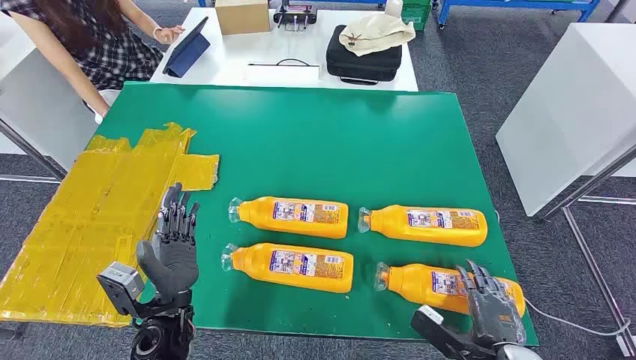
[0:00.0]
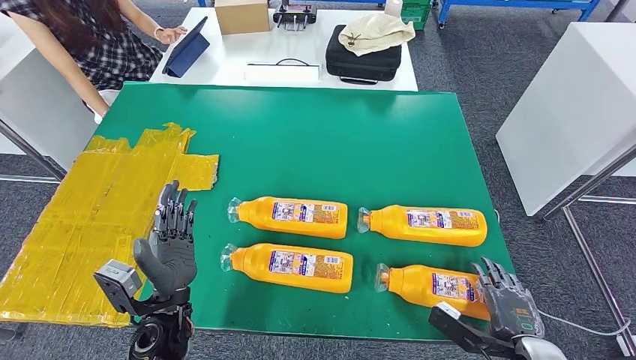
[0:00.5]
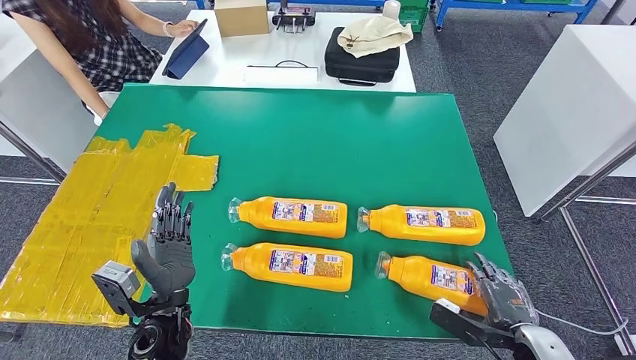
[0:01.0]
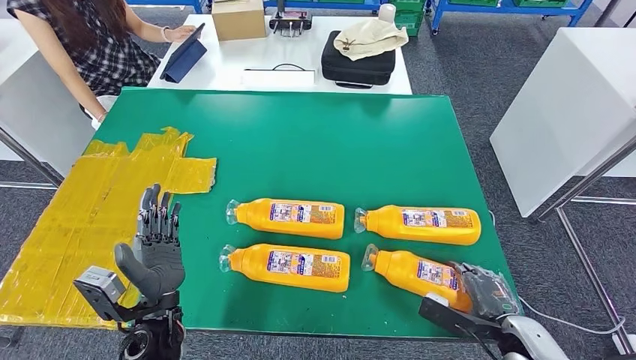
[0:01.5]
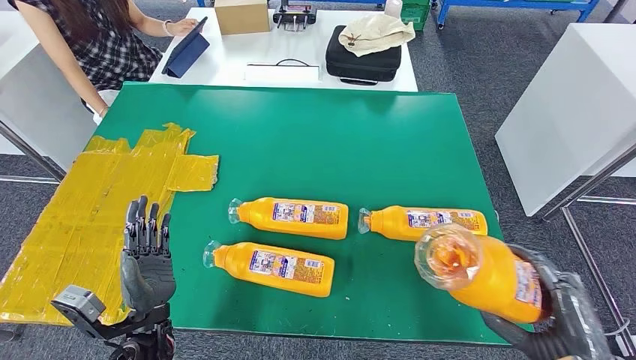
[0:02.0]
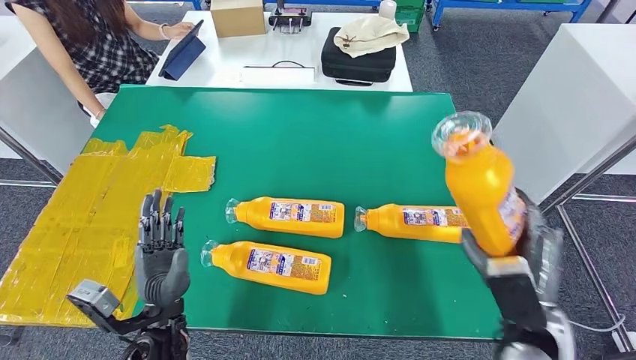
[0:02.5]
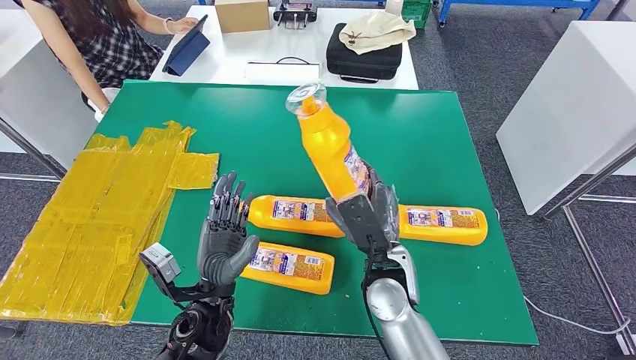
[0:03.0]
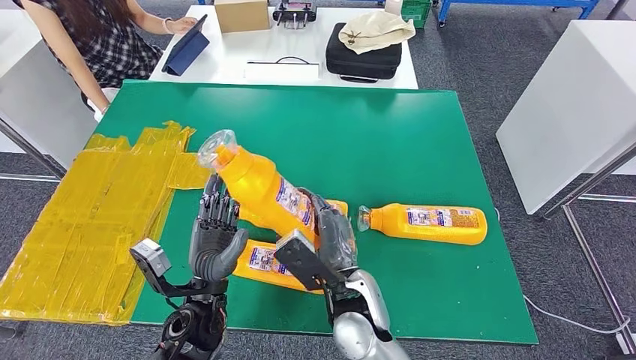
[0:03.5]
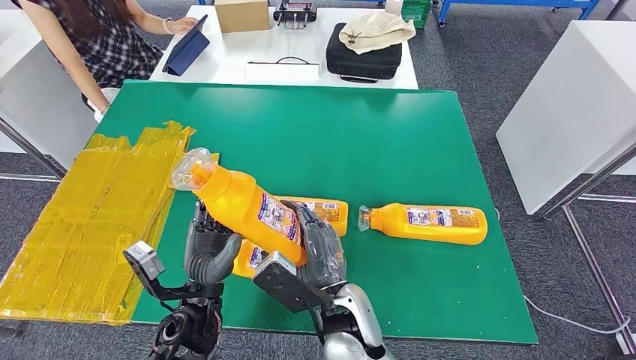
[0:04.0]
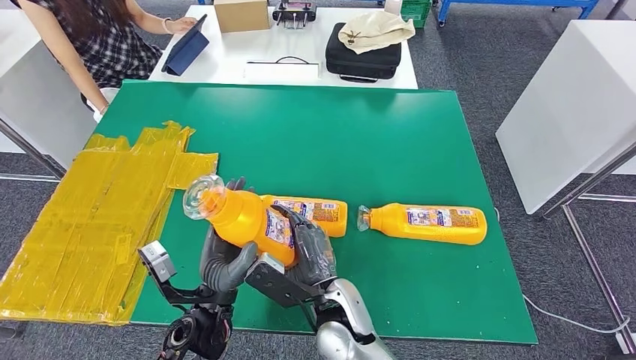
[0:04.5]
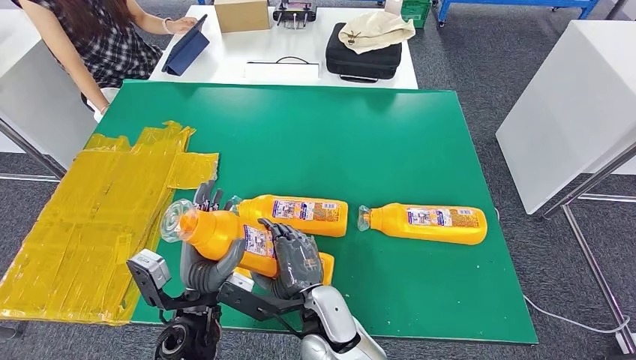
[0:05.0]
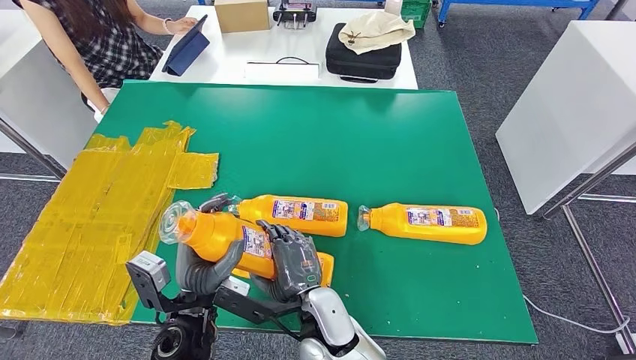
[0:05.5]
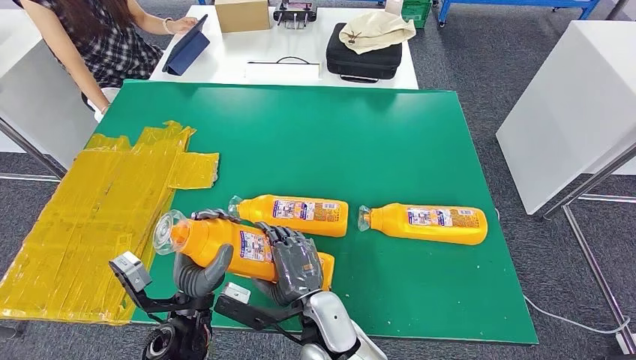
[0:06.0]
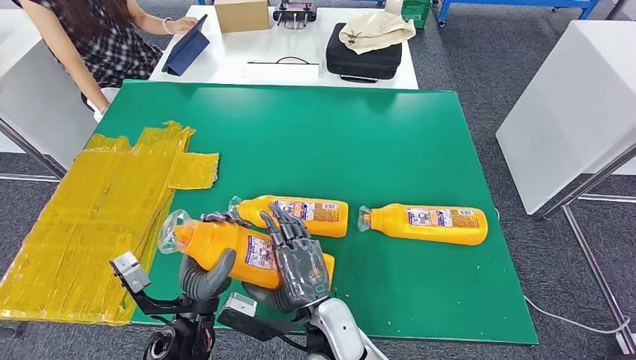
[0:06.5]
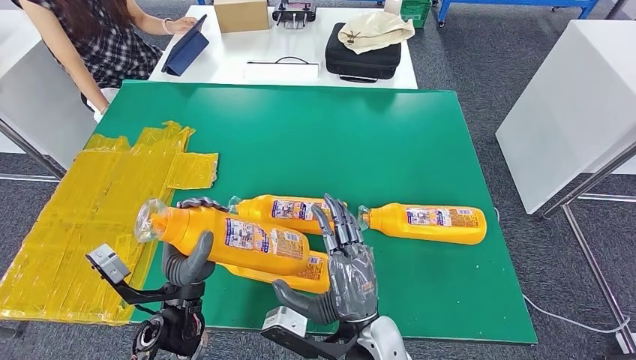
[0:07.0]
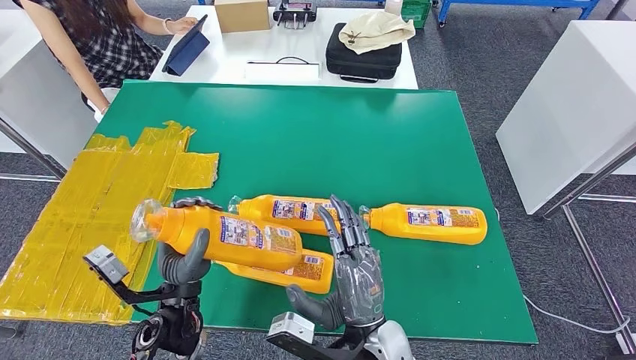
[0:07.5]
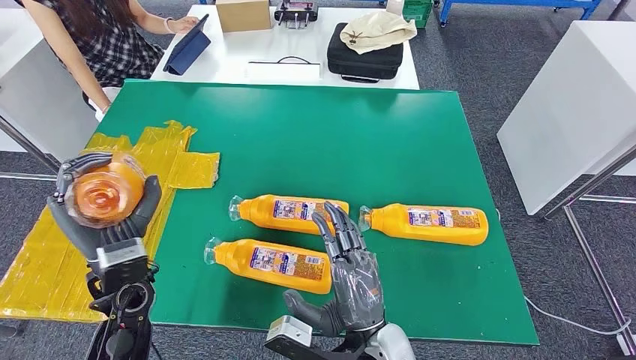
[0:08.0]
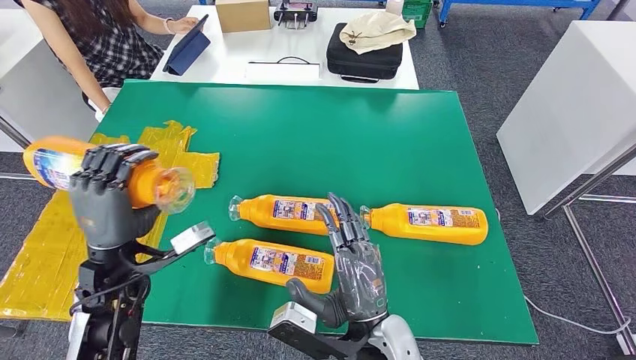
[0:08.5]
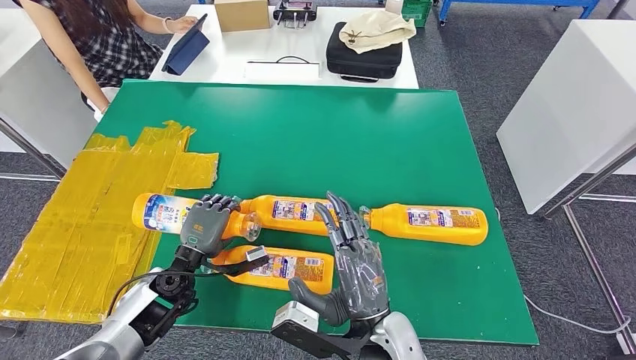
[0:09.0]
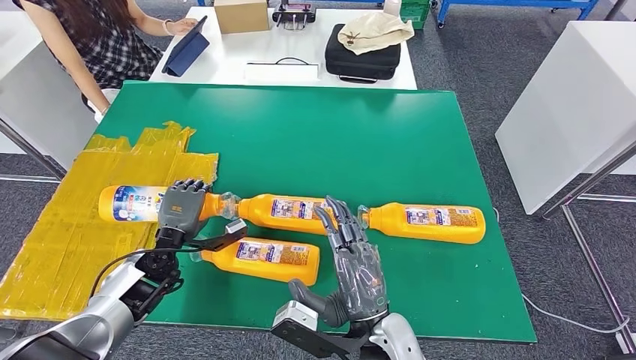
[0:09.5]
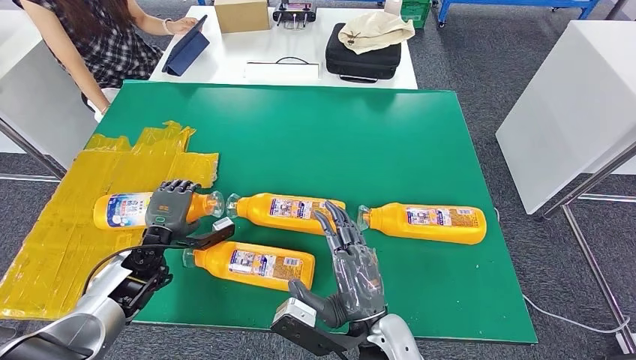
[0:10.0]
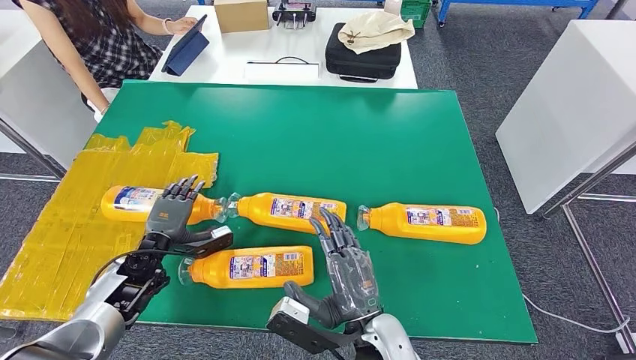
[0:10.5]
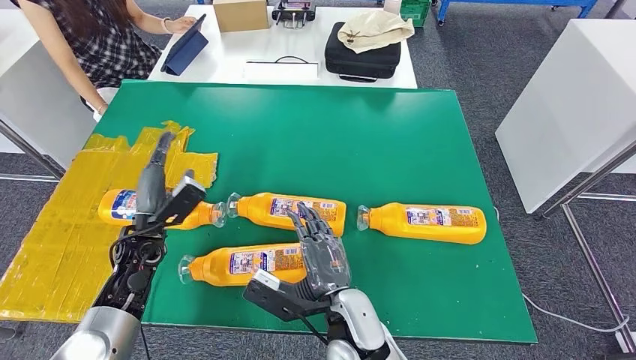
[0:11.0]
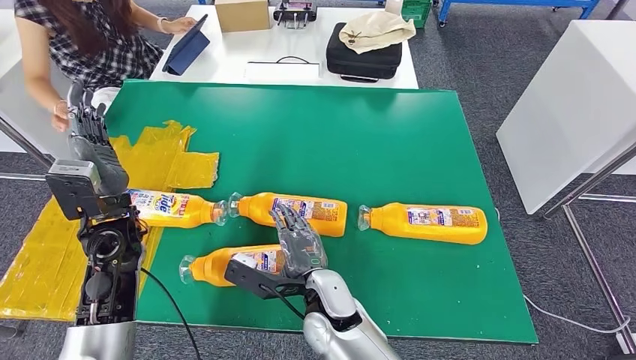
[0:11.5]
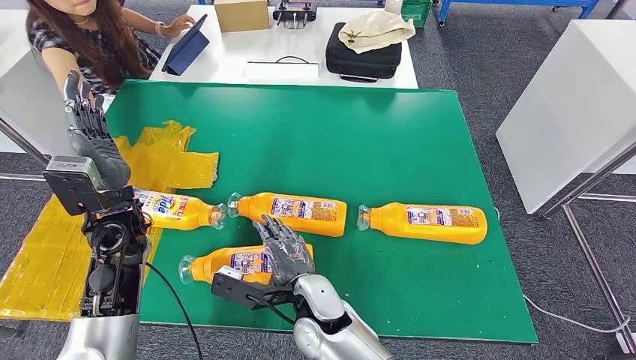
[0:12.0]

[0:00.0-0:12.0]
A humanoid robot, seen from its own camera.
Step, 0:00.0 to 0:03.0: Take the fast-moving consumer goods bottle from the table.
Step, 0:04.0 to 0:11.0: Flip the fast-moving consumer goods bottle to the front side.
0:04.0 to 0:06.0: The right hand ends up roughly 5 cm from where it was.
0:06.0 to 0:08.0: The right hand heads to the right, covering about 10 cm. Meanwhile the left hand travels to the left, upward and forward by some 15 cm.
0:08.0 to 0:10.0: The left hand is displaced downward, to the left and forward by about 15 cm.

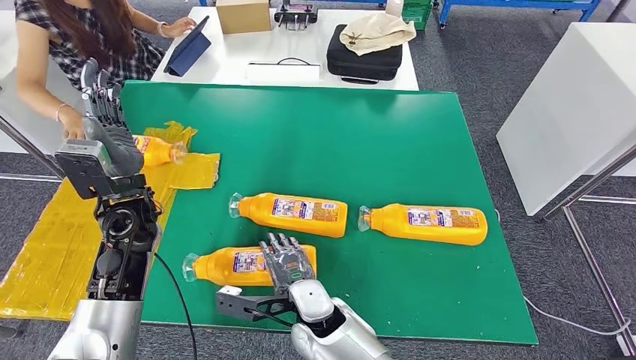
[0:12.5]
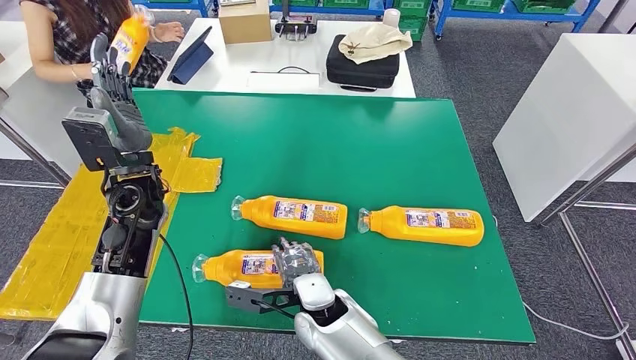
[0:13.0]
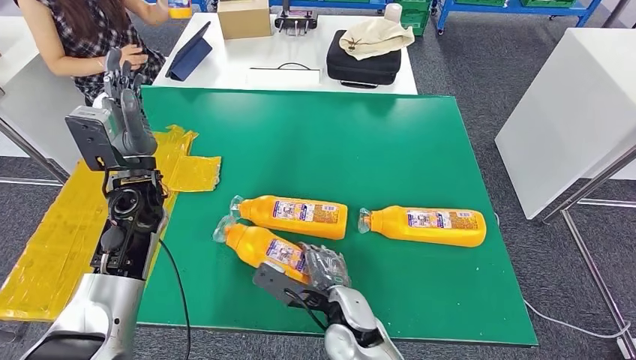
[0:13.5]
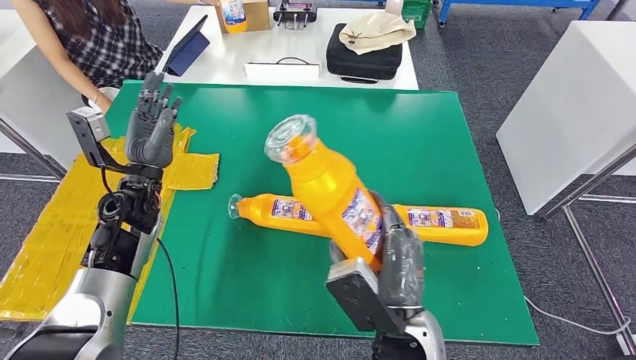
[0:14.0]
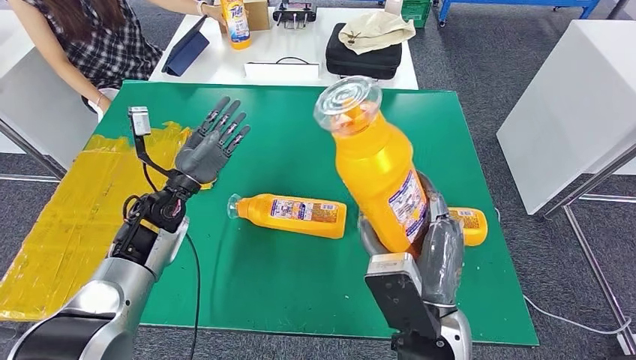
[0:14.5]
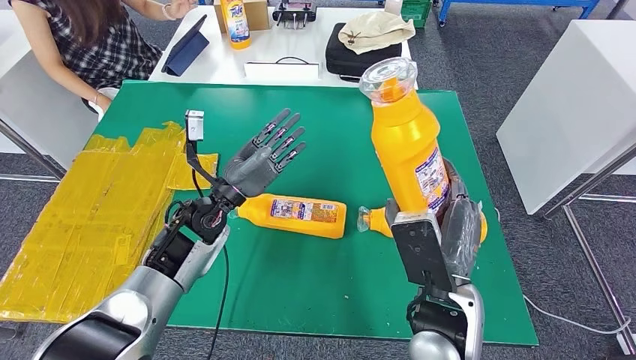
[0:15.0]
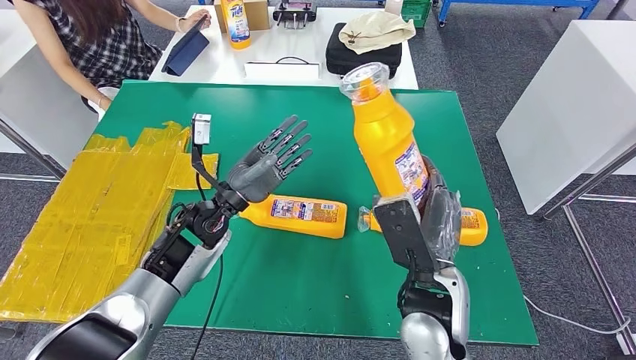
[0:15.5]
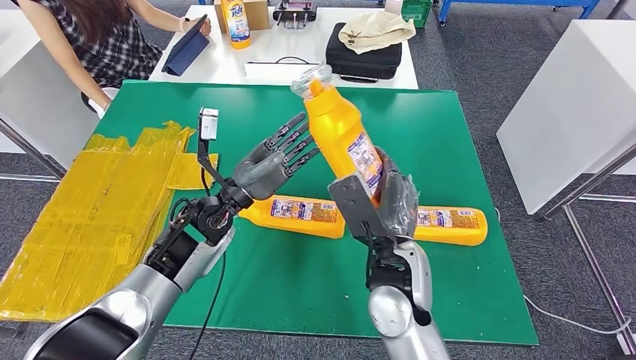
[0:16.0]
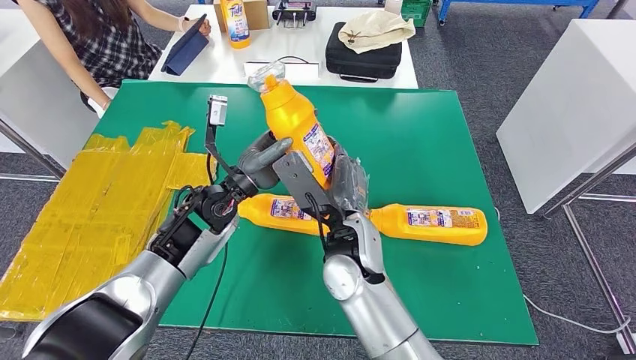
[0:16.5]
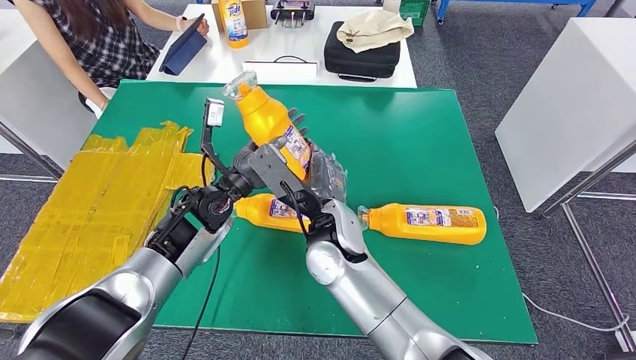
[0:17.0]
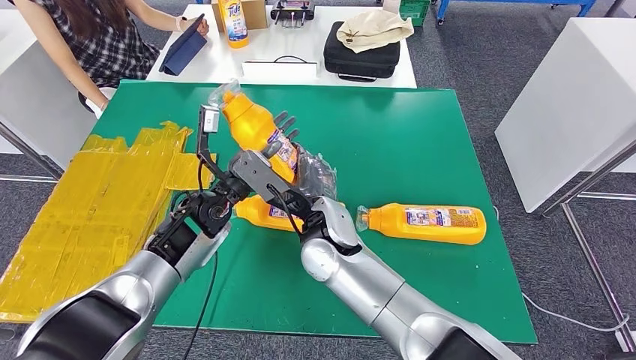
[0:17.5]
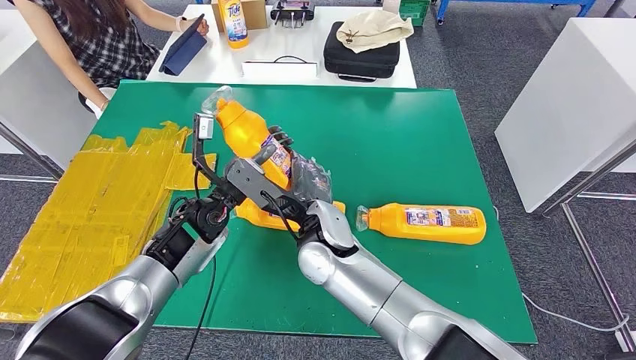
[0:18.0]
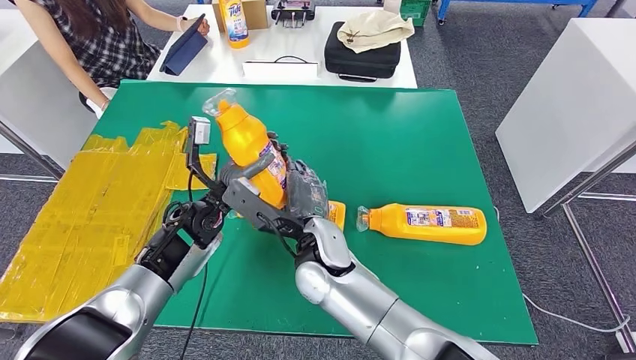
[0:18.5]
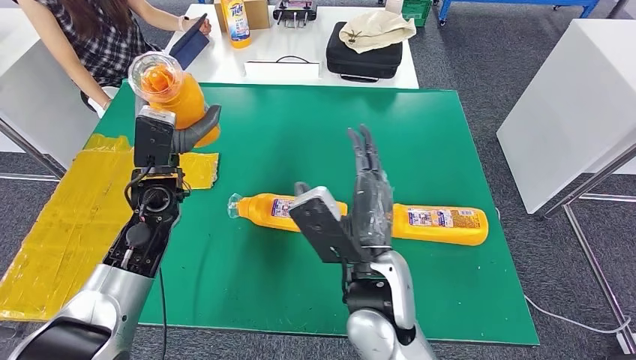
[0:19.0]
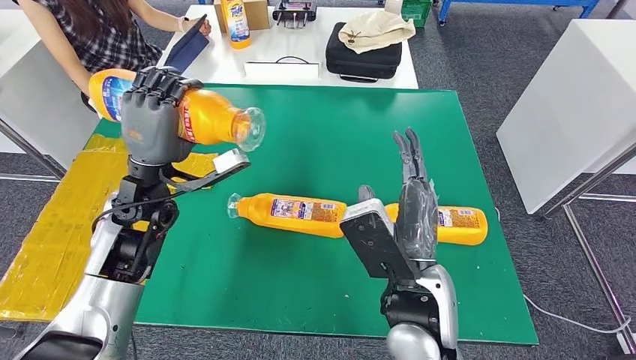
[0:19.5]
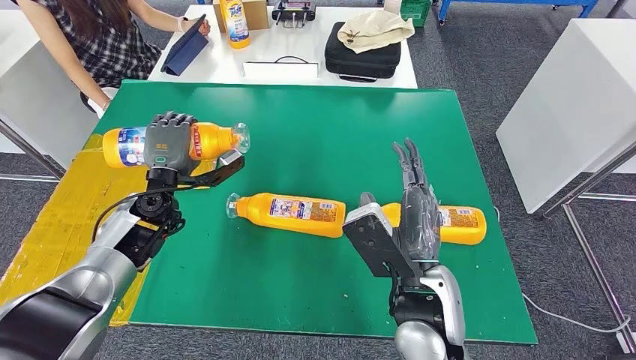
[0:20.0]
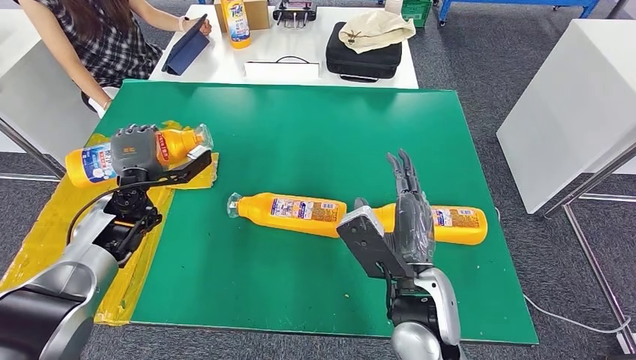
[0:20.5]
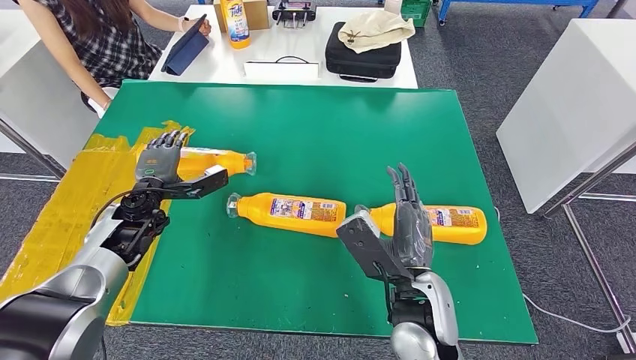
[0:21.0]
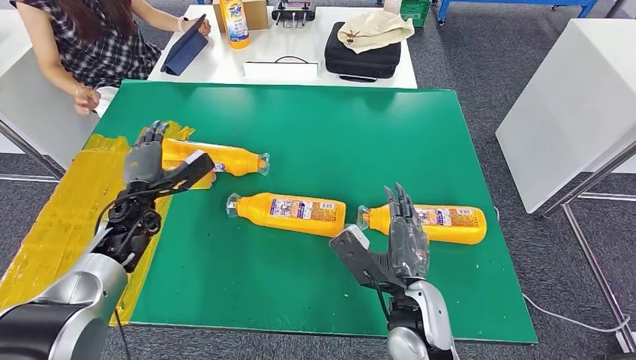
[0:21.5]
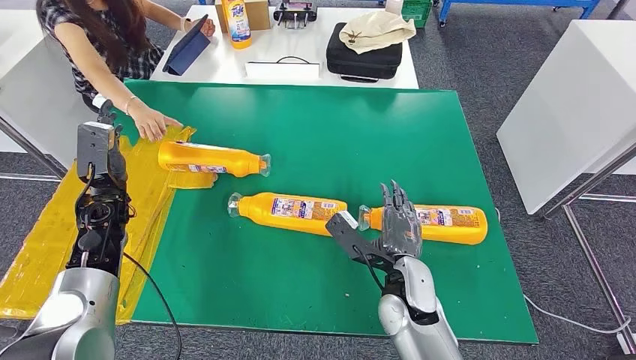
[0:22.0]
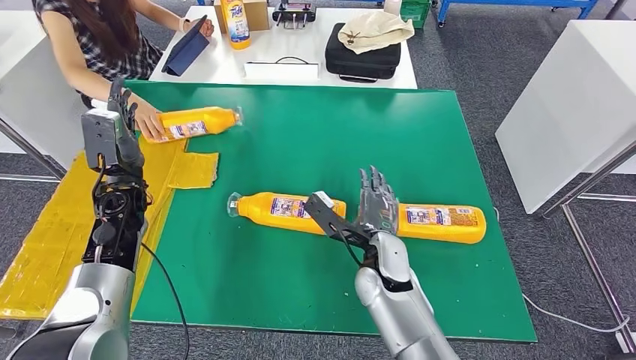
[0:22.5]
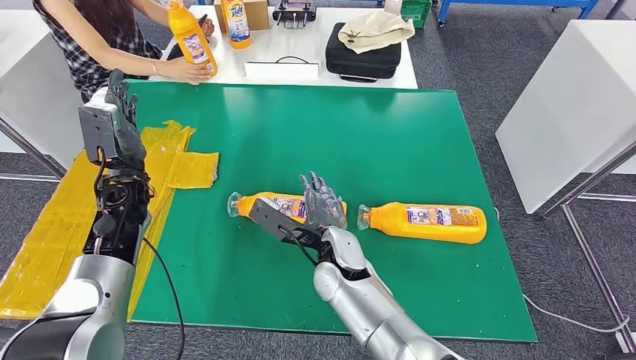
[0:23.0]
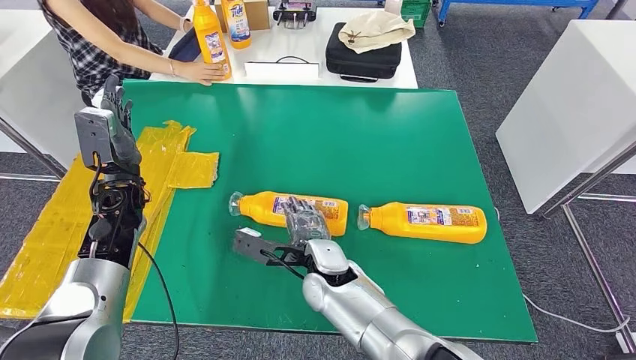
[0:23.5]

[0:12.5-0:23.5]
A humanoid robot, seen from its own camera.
Step, 0:13.0 to 0:15.0: Pick up the fast-moving consumer goods bottle from the table.
Step, 0:16.5 to 0:21.5: Flip the fast-moving consumer goods bottle to the front side.
0:20.0 to 0:21.5: The left hand moves about 5 cm. The right hand travels downward by about 5 cm.
